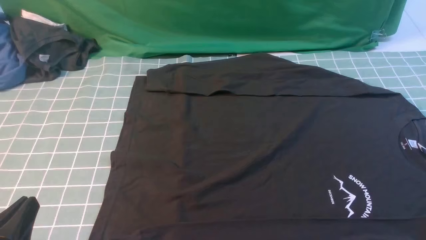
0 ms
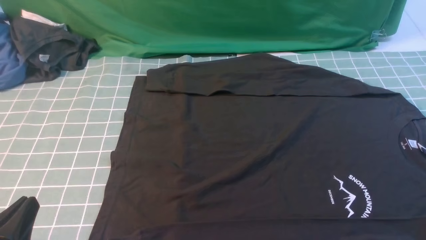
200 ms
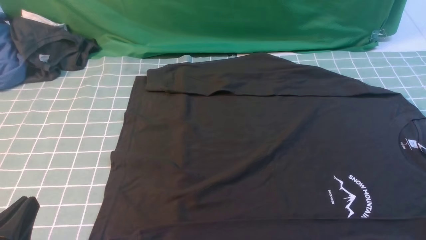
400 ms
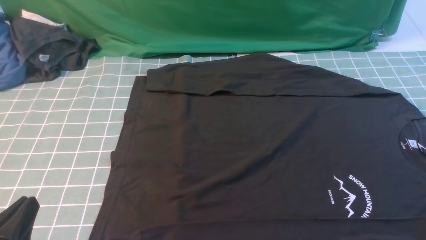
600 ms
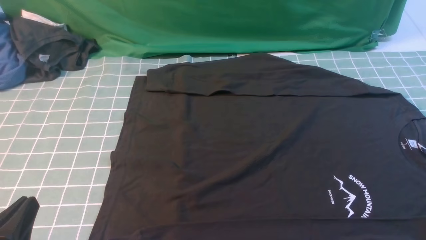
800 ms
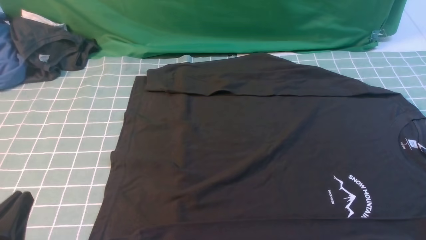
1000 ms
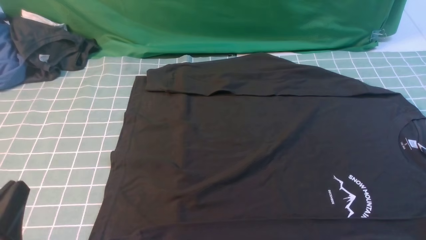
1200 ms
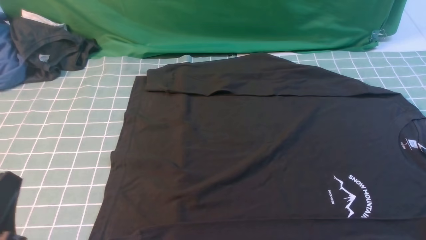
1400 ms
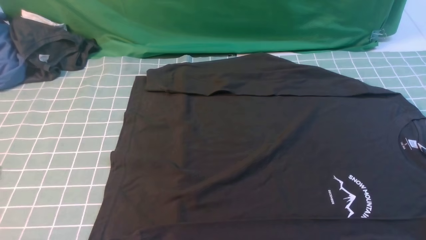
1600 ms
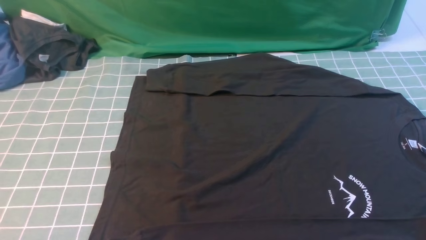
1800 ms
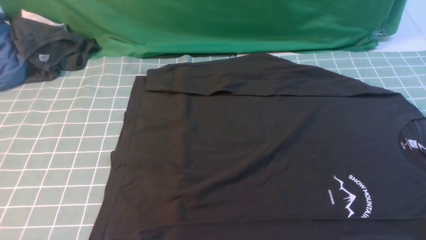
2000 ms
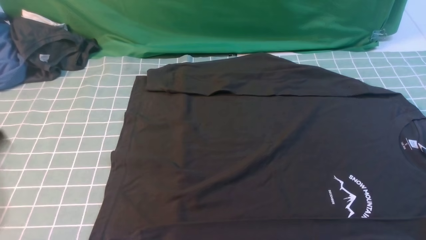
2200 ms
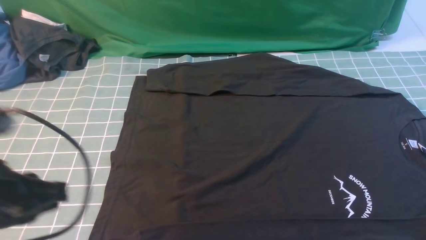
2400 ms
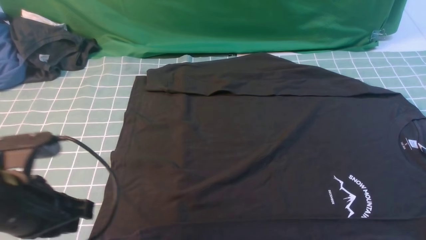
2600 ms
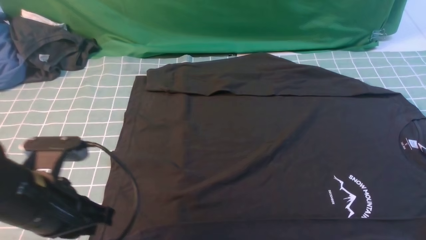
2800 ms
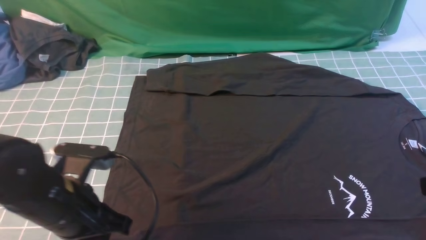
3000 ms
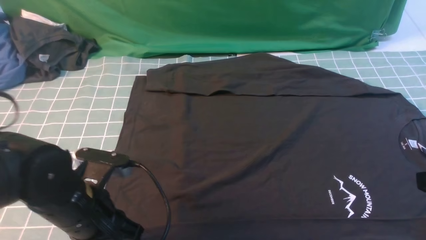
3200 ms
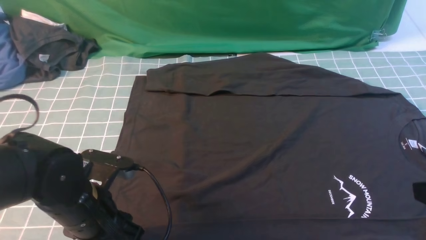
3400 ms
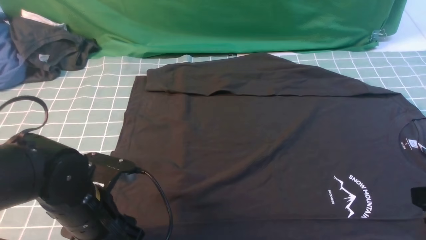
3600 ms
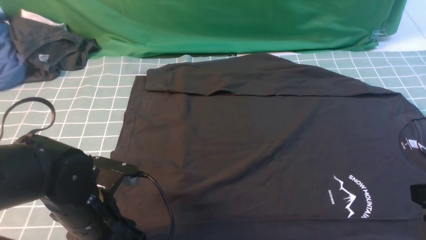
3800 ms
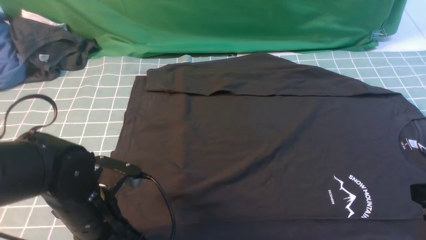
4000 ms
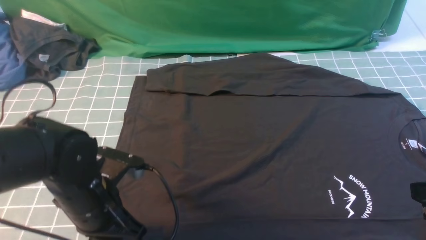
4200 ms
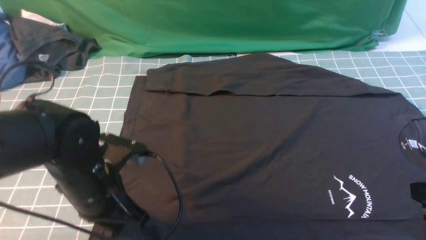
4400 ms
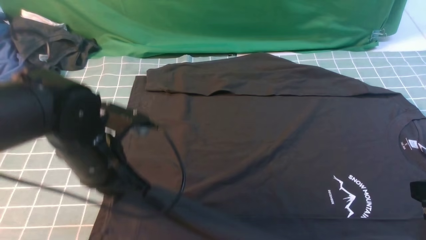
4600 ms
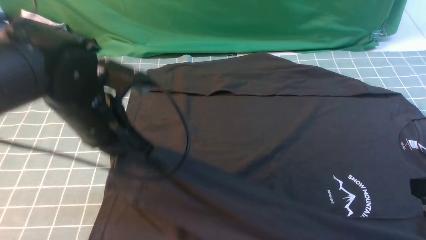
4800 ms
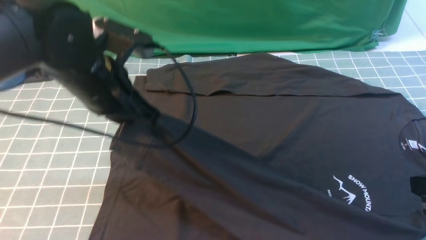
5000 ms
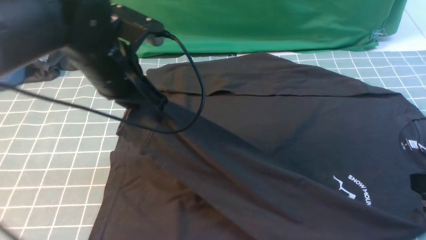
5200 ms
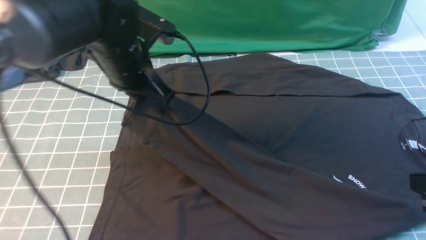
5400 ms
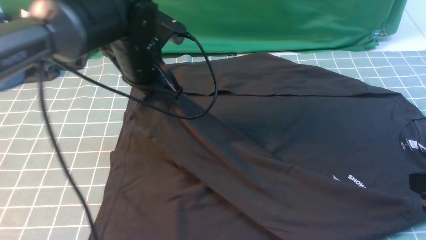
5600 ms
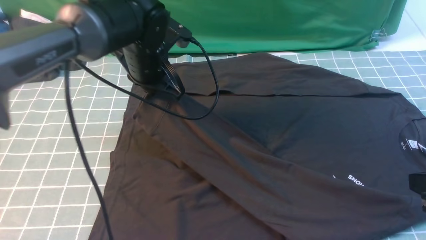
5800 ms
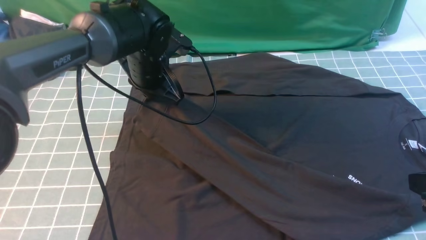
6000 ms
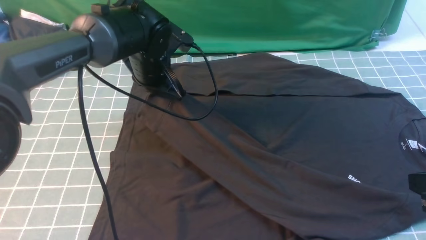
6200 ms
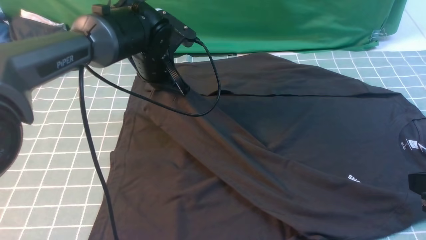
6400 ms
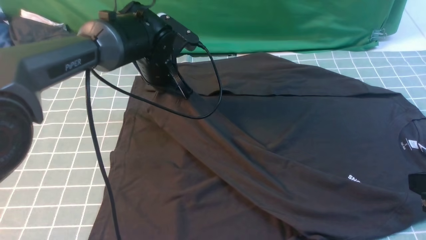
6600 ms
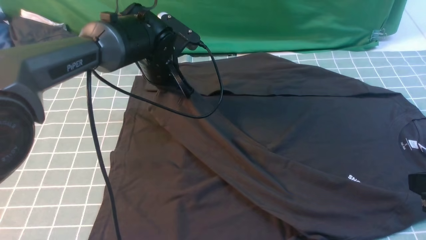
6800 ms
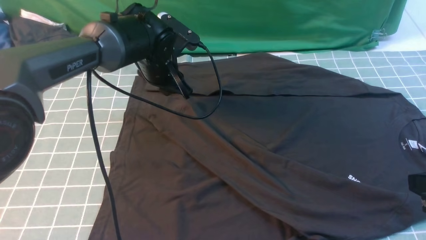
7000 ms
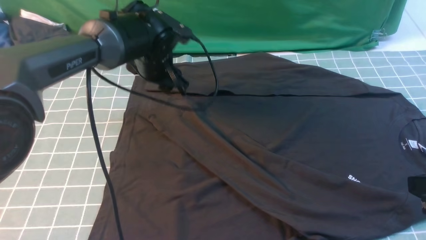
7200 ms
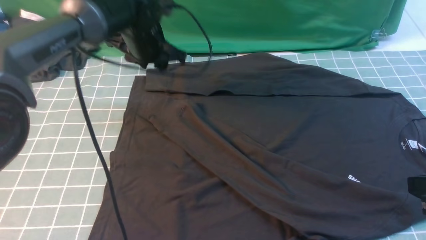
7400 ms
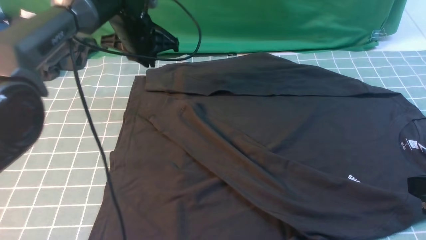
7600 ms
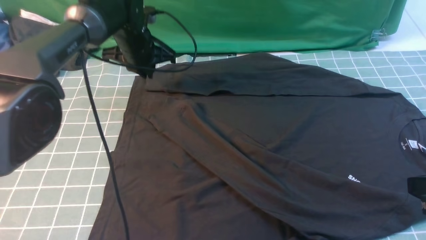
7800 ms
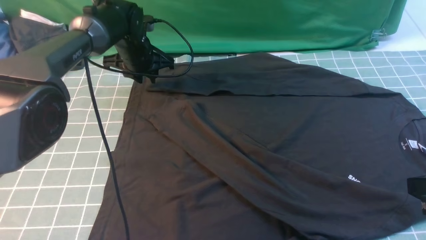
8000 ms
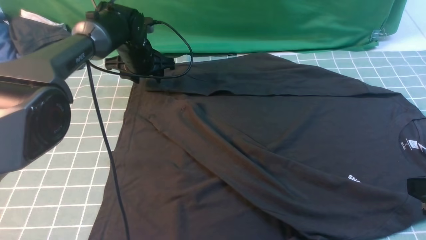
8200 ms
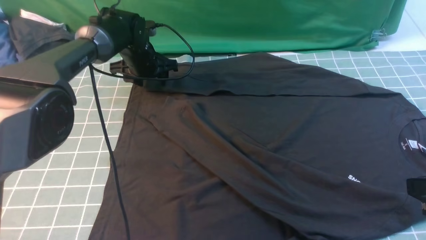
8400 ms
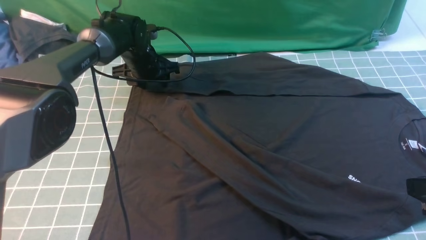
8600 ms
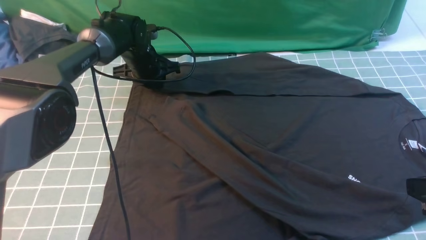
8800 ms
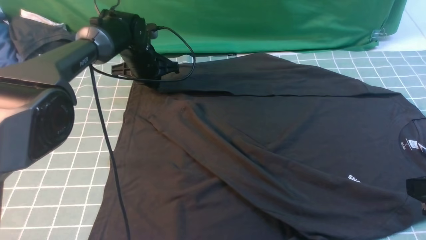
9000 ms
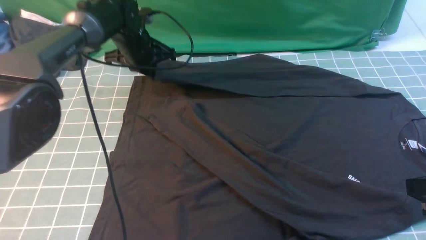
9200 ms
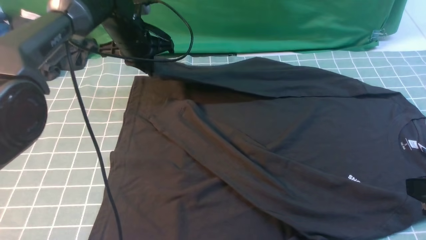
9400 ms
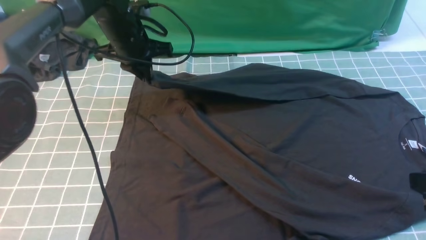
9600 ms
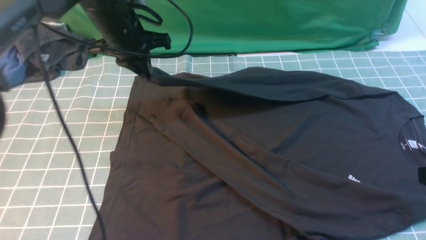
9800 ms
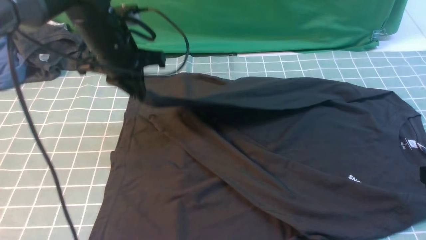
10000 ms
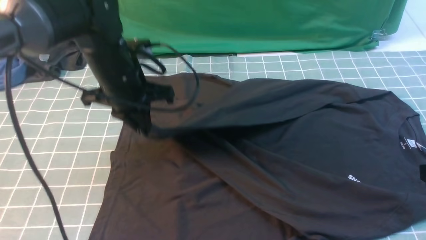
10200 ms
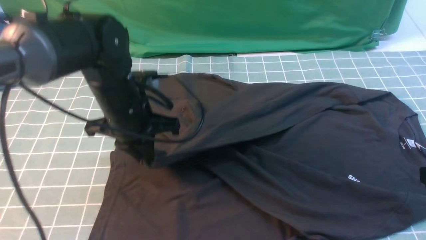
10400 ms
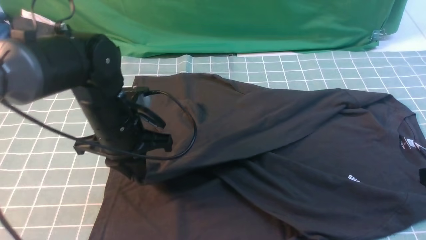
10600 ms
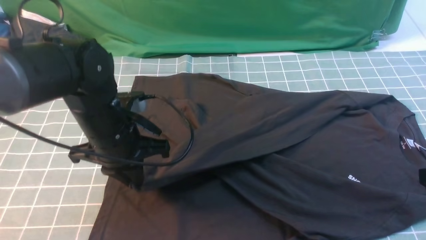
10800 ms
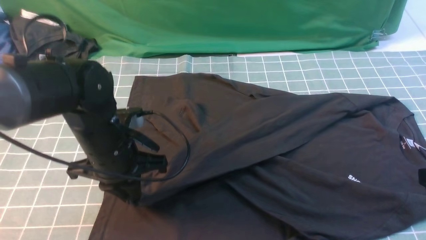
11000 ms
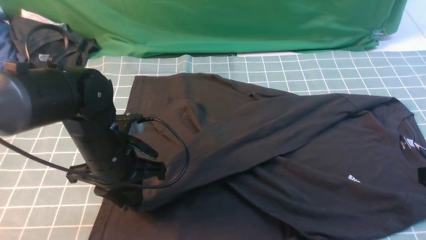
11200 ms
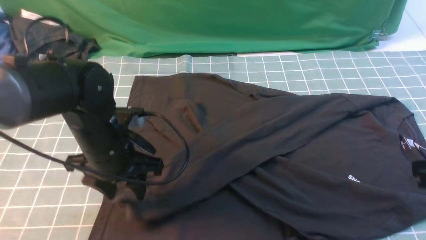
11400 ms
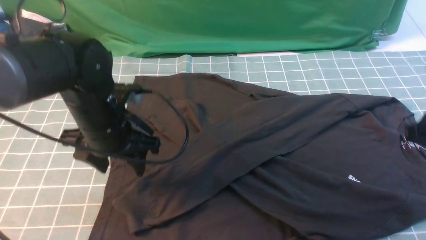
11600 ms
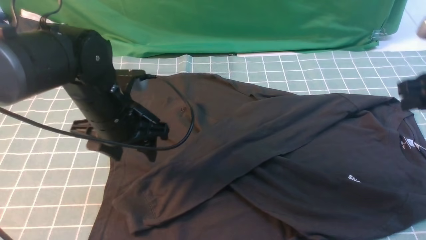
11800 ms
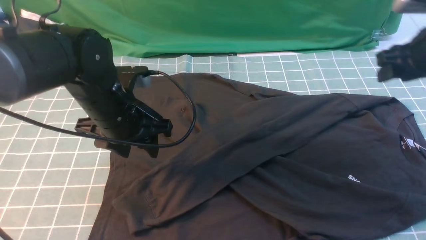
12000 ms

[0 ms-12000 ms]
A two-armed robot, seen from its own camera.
Step, 0 ms to 4400 ms: use the left arm to clamp the cuff closest to it.
Step, 4600 ms to 7400 ms: use the left arm to drag and place the cuff at the centered position on the left edge of the fabric.
Step, 7600 ms to 9400 ms: use the left arm to clamp the cuff farthest from it.
Step, 9600 ms to 11800 ms: use the left arm to drag and drop the cuff onto the cuff closest to the left arm.
1600 ms to 3000 ms: The left gripper travels forward and to the right by approximately 15 cm.
3000 ms to 4400 ms: The left gripper moves approximately 5 cm, and opens and closes again.
4400 ms to 6000 ms: The left gripper is displaced forward by approximately 20 cm.
6000 ms to 7600 ms: The left gripper travels forward by about 5 cm, and opens, then closes once more.
7600 ms to 9000 ms: The left gripper goes roughly 5 cm downward, and opens and closes again.
9000 ms to 10400 ms: The left gripper goes roughly 20 cm backward.
10400 ms to 12000 ms: The right gripper heads forward, covering roughly 25 cm, and opens its fingers; the left gripper opens up.

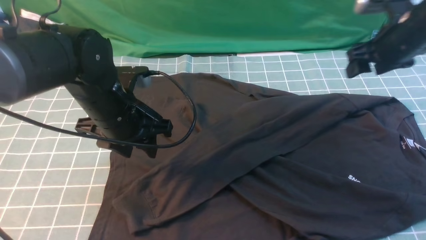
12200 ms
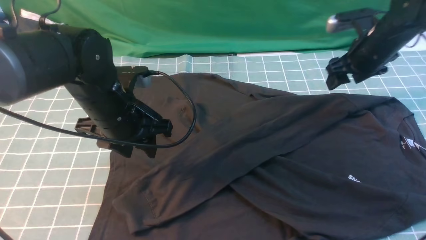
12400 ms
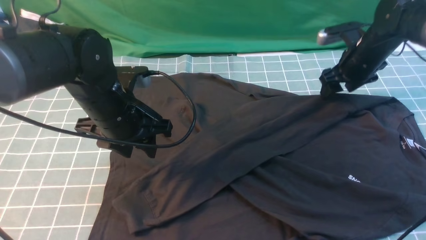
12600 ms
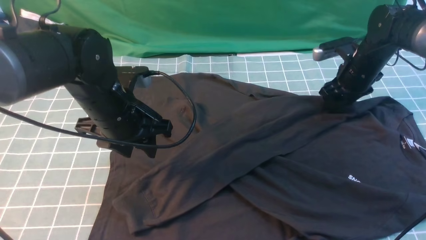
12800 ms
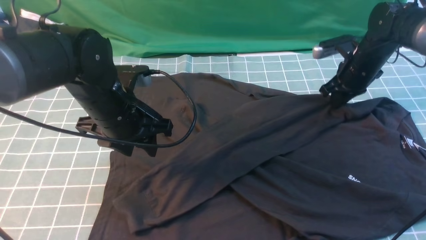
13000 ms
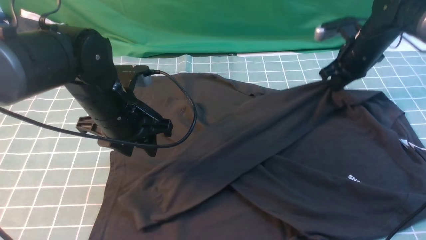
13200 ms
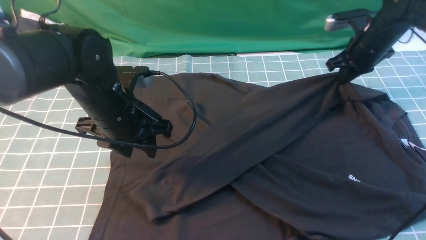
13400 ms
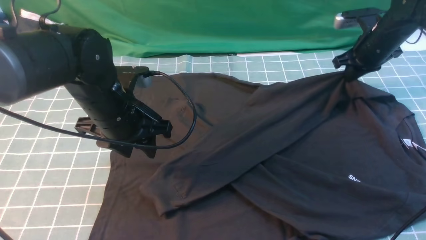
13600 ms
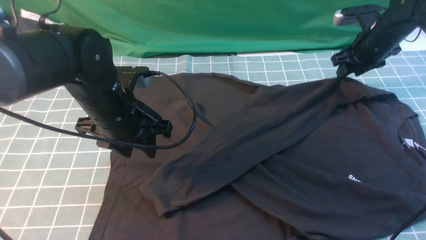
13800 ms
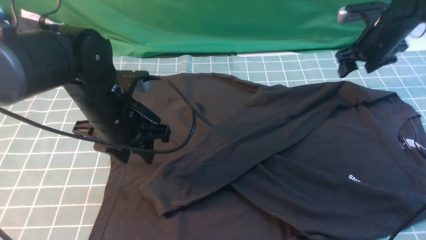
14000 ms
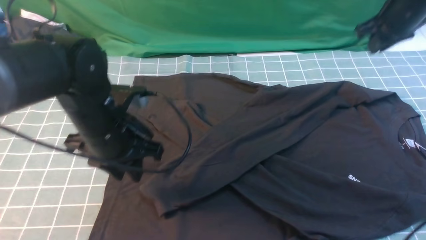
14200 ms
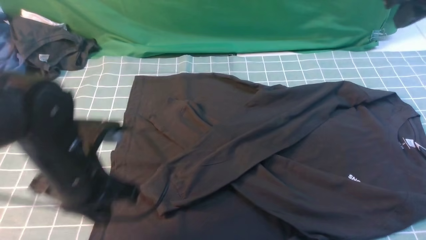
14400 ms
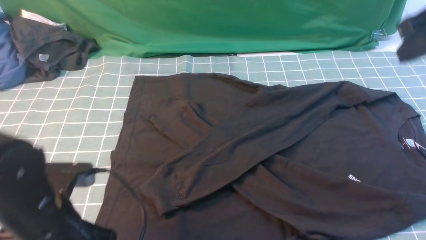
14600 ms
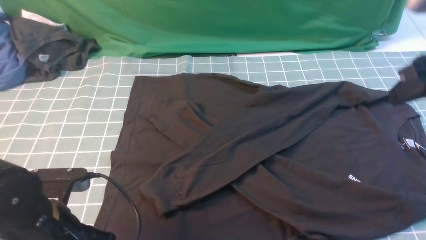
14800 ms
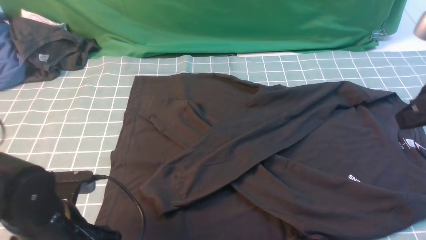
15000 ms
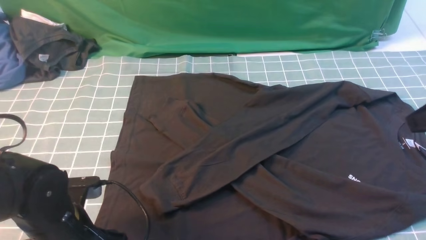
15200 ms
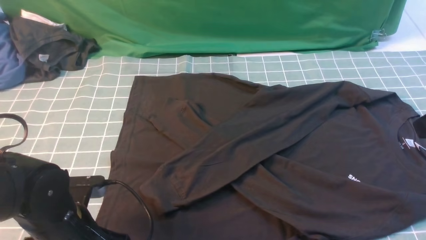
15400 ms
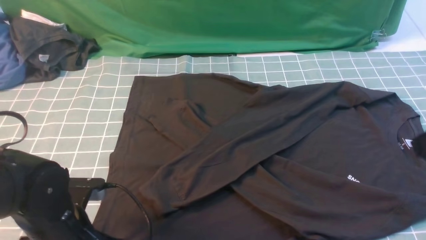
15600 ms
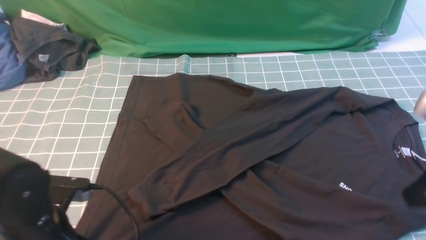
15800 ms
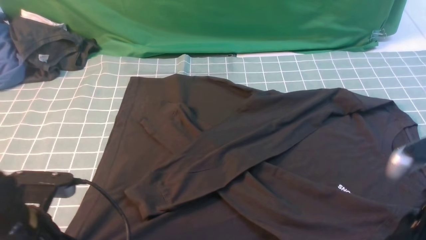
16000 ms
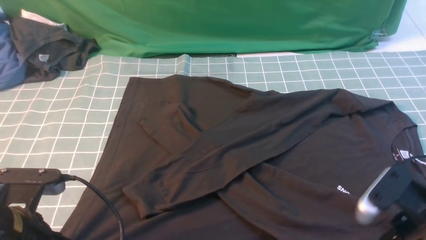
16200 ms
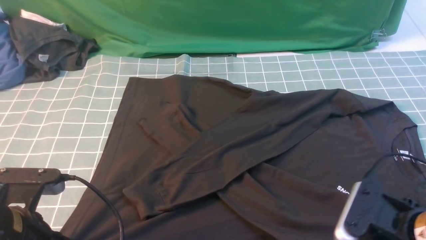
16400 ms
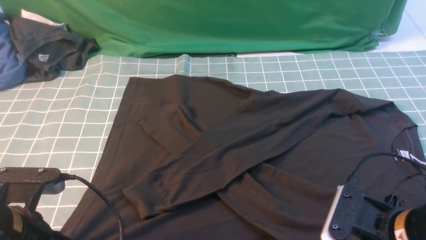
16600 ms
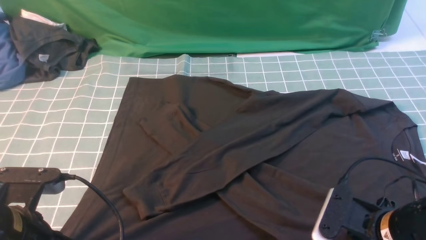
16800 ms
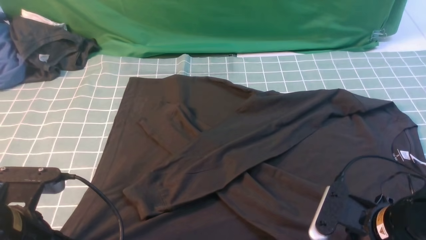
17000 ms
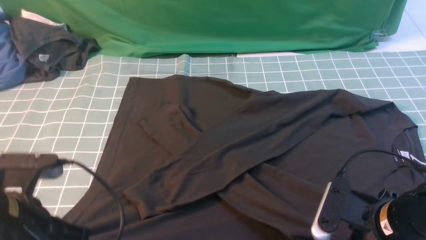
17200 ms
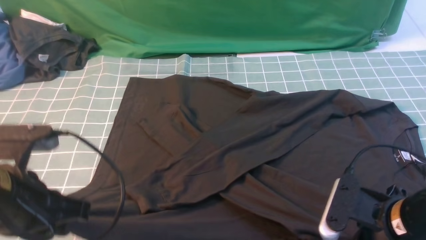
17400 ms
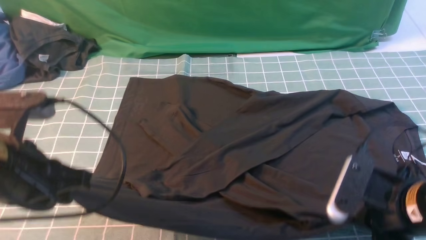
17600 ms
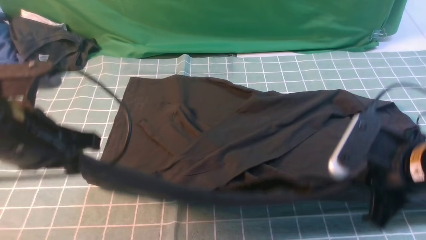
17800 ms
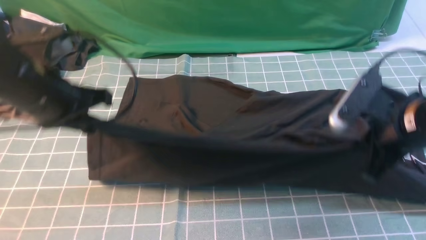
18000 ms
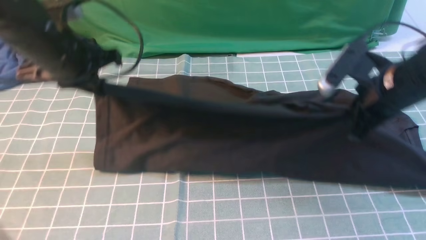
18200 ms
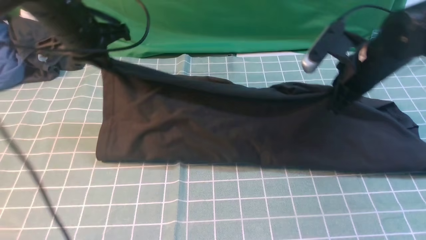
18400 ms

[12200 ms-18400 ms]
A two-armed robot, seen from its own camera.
Step, 12200 ms to 17200 ms: use both arms simultaneously to clamp the lower edge of the clothing fabric.
12200 ms to 13800 ms: The right gripper is displaced forward by roughly 5 cm, and closes, then reopens.
13800 ms to 15400 ms: The right gripper is displaced backward and upward by some 35 cm, and closes up. The left gripper shifts some 15 cm backward and downward.
15400 ms to 16800 ms: The right gripper moves downward, approximately 20 cm, and opens up. The left gripper travels upward by roughly 5 cm, and closes up.
16800 ms to 18400 ms: Both grippers move forward, about 25 cm. The right gripper closes its fingers.
